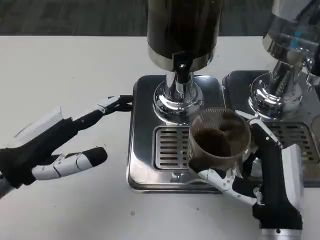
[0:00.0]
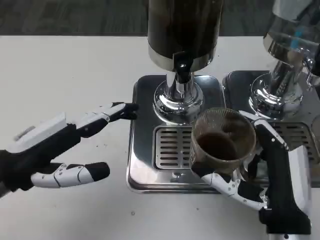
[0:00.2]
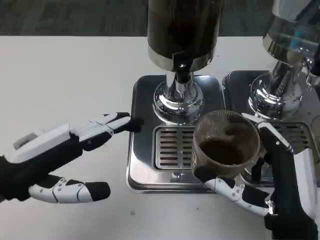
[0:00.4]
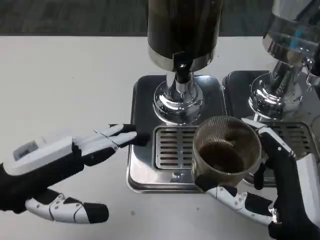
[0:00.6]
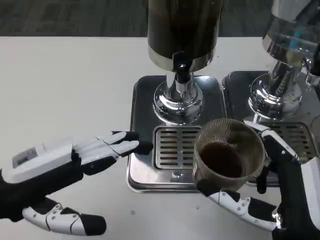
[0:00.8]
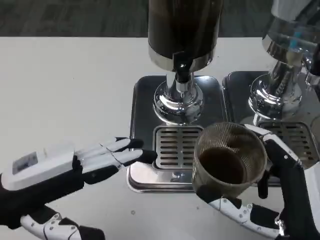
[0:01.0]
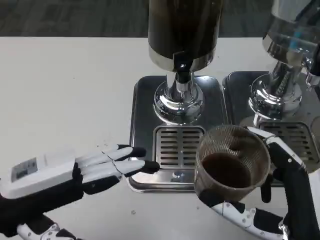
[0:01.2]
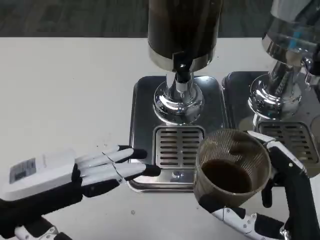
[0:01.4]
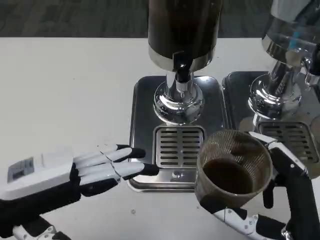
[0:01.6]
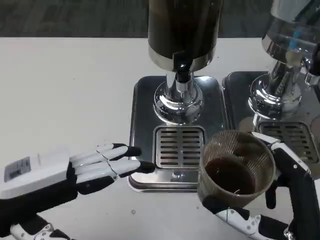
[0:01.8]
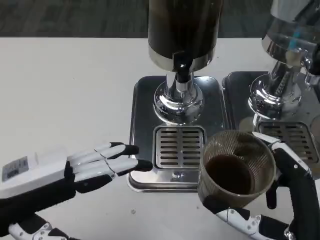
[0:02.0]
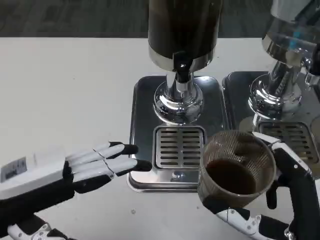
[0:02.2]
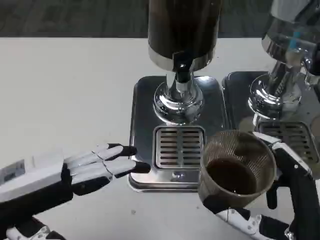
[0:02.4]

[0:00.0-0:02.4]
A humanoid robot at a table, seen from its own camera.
Task of the whole recording: Grasp the cup under the faucet to collect the drink, then remove the cup.
0:00.0 to 0:01.2: The right hand is displaced backward by approximately 5 cm.
0:01.2 to 0:02.4: Both hands stay about where they are.

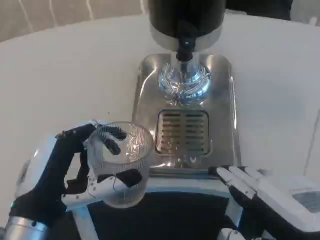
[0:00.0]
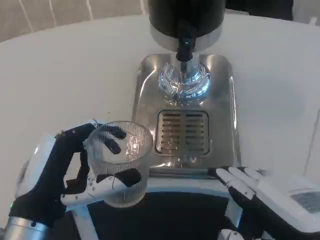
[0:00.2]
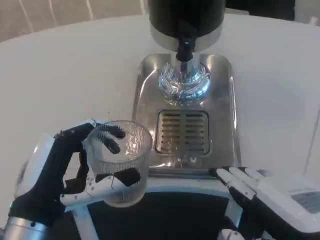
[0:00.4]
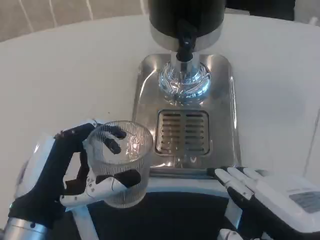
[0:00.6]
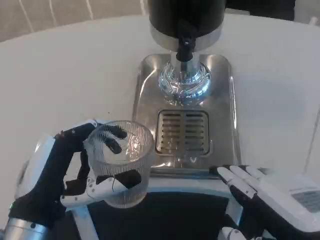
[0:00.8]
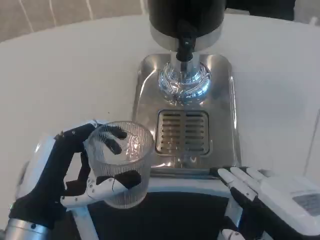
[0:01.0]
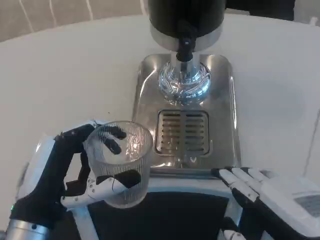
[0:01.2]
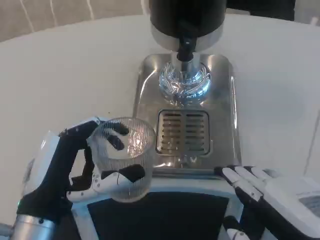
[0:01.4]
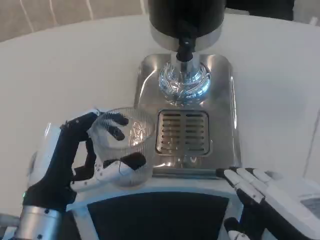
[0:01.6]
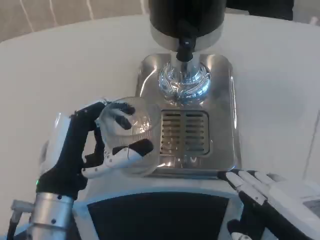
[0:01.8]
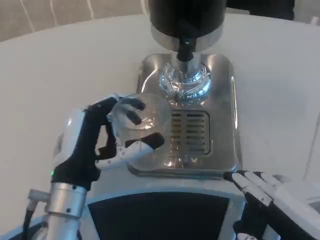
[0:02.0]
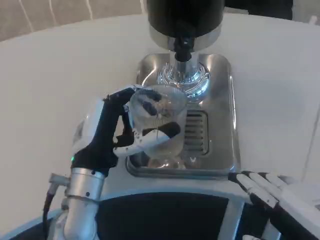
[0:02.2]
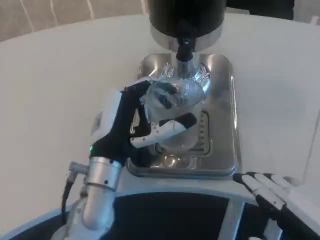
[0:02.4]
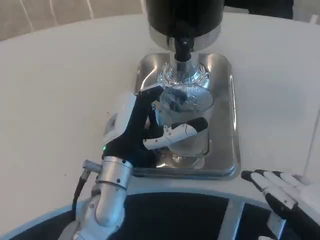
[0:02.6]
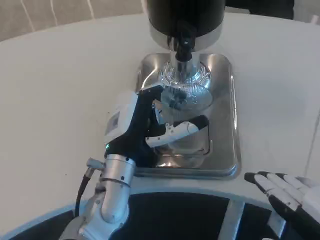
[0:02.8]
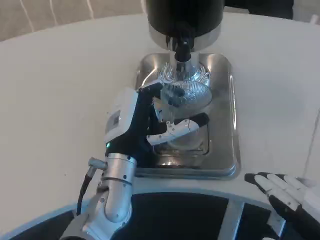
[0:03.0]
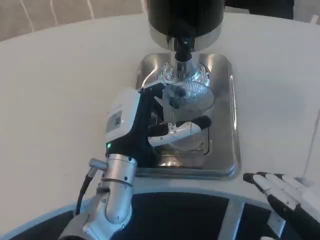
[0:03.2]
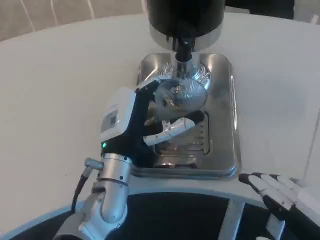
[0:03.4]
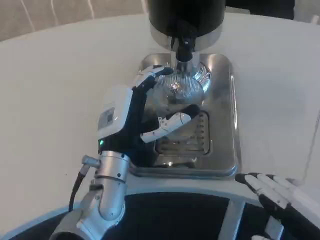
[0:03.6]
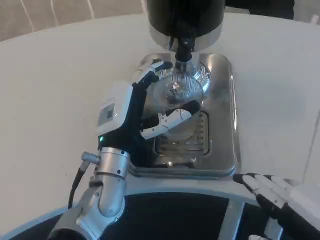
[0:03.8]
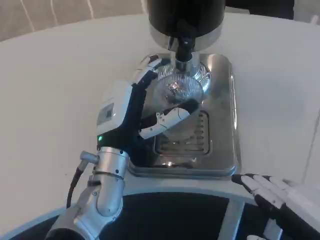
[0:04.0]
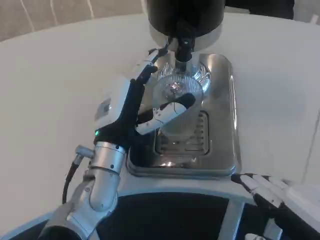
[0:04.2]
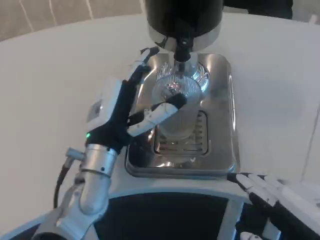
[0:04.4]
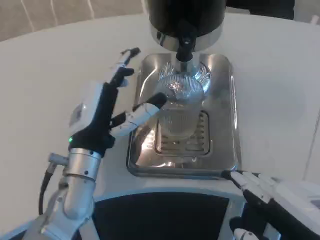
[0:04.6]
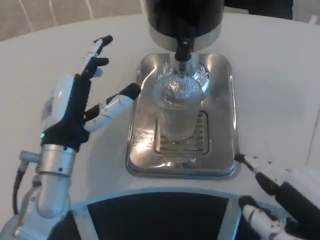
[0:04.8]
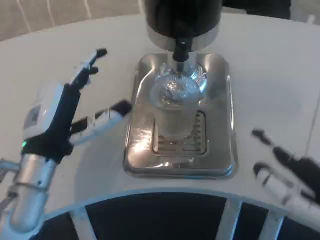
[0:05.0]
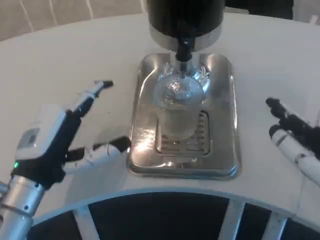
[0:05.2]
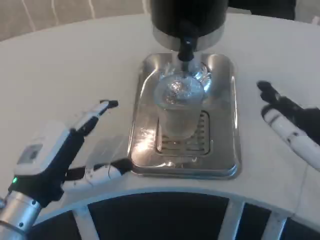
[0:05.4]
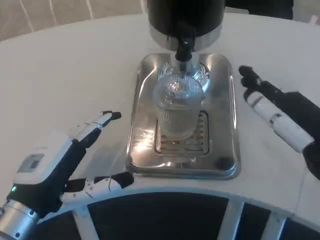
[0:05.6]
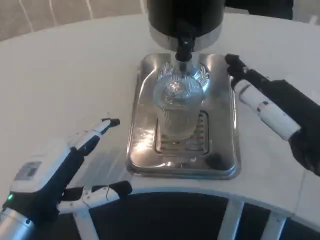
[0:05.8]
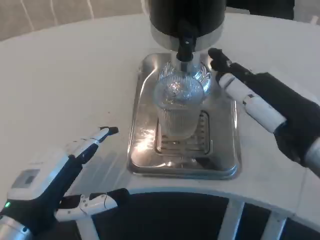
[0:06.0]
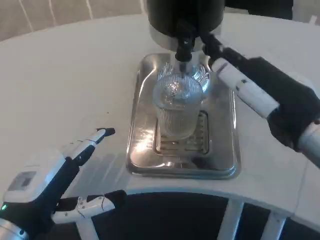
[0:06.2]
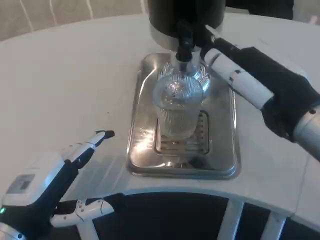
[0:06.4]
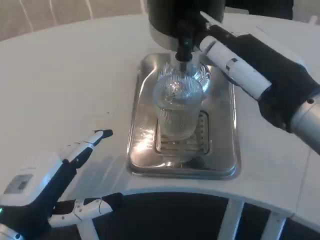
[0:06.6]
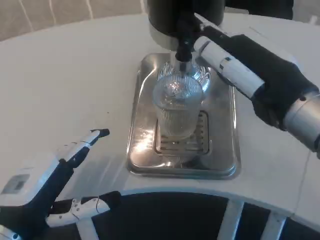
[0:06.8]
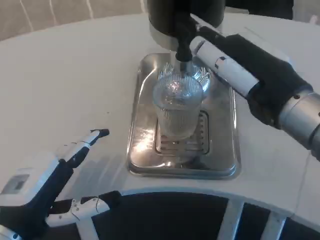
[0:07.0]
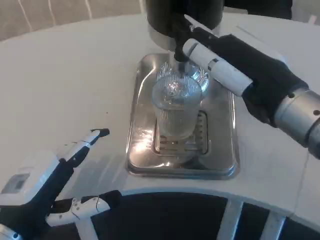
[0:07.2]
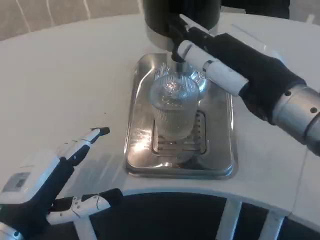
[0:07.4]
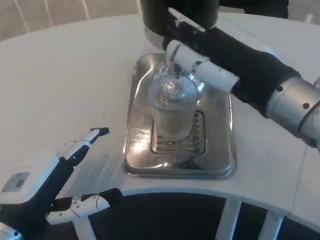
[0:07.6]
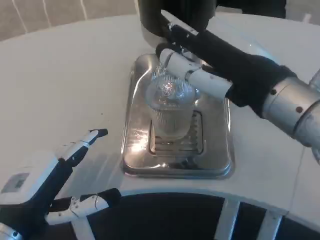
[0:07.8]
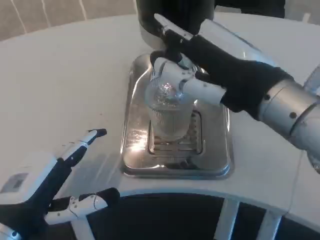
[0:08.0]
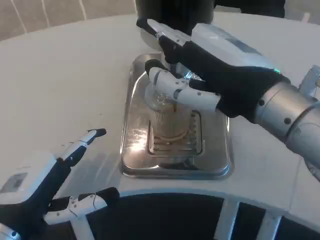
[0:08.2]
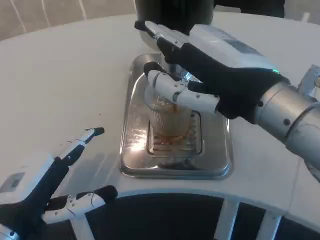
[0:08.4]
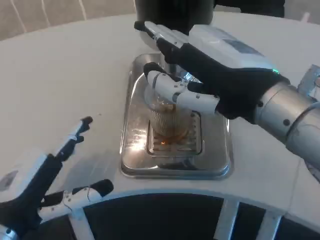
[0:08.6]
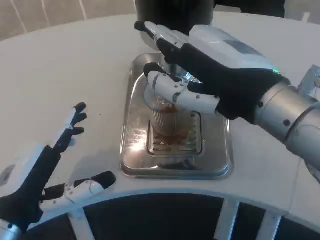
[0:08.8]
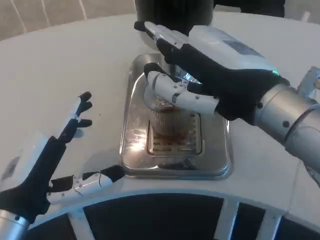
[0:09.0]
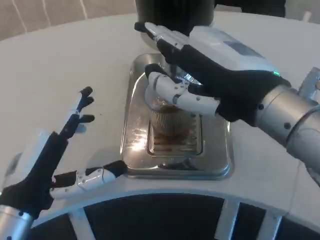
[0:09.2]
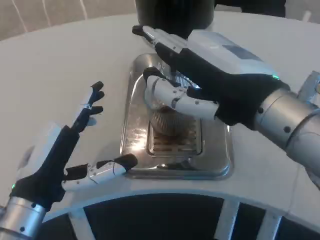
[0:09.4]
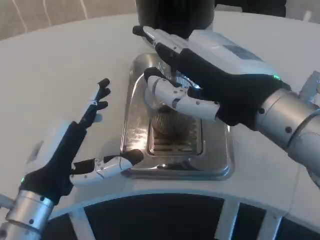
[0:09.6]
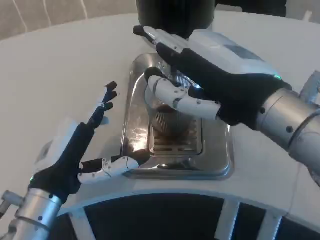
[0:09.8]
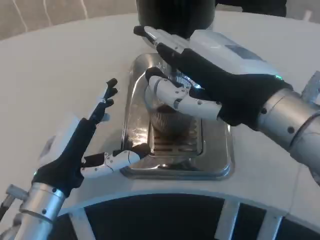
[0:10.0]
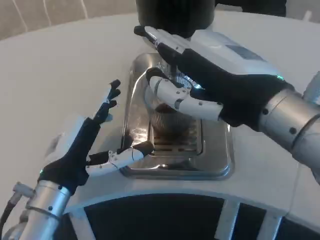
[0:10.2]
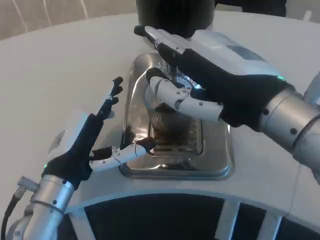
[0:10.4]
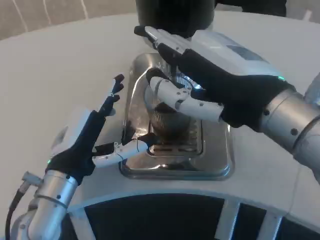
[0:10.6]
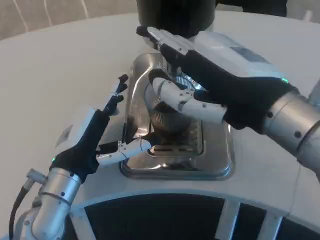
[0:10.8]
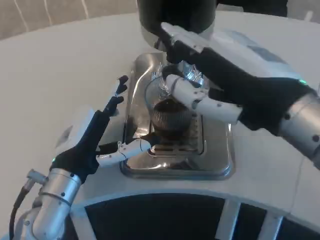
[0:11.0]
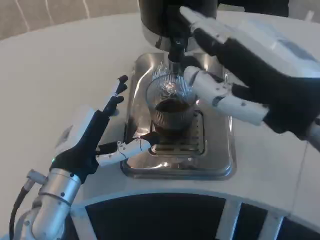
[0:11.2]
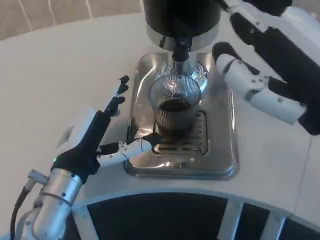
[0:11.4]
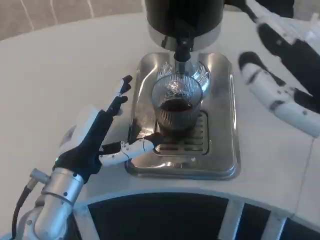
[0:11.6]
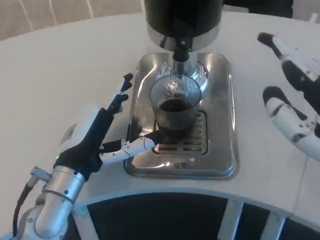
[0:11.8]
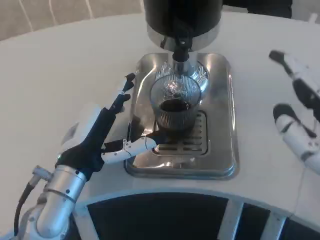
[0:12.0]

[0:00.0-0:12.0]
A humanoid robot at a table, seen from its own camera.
Task of the whole recording: Grasp the cup under the faucet to collect the drink, then remove the cup.
0:00.0 to 0:01.6: The hands make only small movements.
0:01.6 to 0:03.0: The left hand travels forward and to the right by approximately 15 cm.
0:03.0 to 0:04.4: There are only small adjustments of the hands.
0:04.4 to 0:06.0: The left hand shifts about 15 cm backward and to the left. Meanwhile the right hand moves forward, approximately 10 cm.
0:06.0 to 0:07.6: The right hand changes place by roughly 5 cm.
0:09.0 to 0:10.4: The left hand heads forward, covering roughly 5 cm.
0:10.4 to 0:12.0: The right hand moves to the right, backward and downward, about 15 cm.

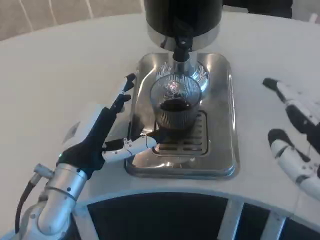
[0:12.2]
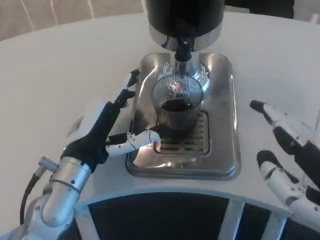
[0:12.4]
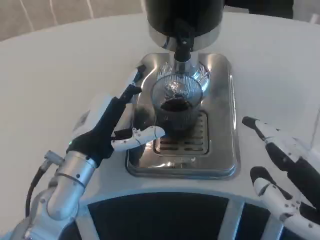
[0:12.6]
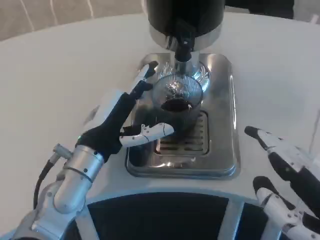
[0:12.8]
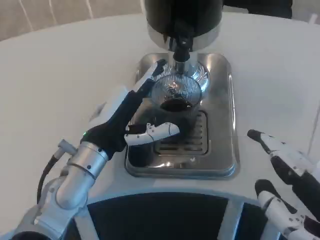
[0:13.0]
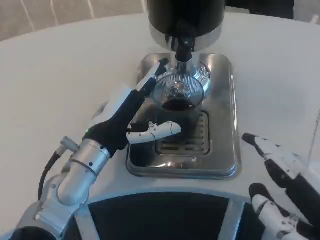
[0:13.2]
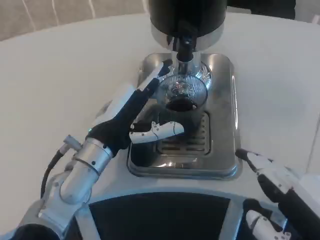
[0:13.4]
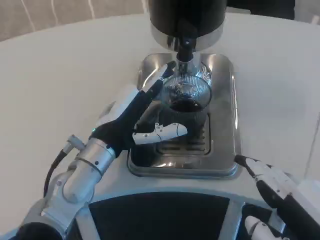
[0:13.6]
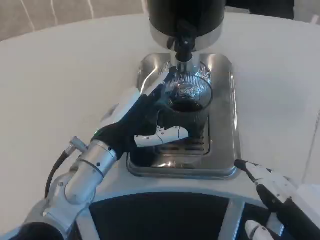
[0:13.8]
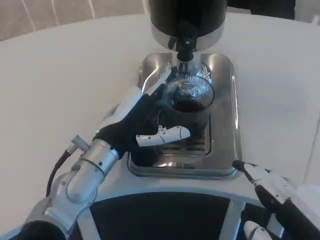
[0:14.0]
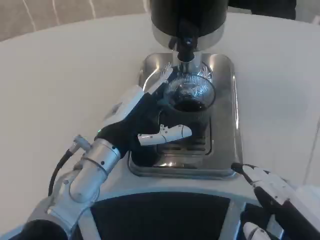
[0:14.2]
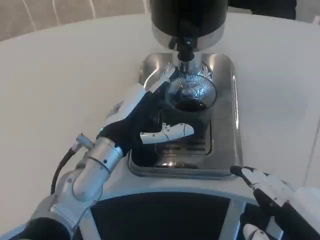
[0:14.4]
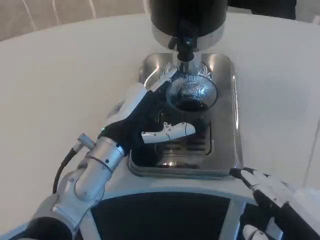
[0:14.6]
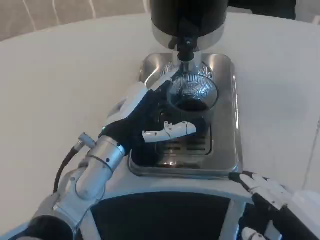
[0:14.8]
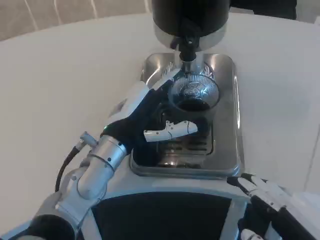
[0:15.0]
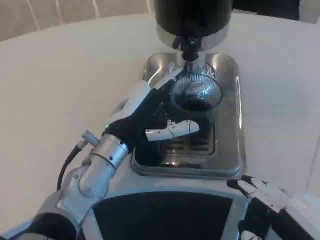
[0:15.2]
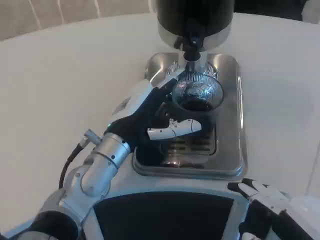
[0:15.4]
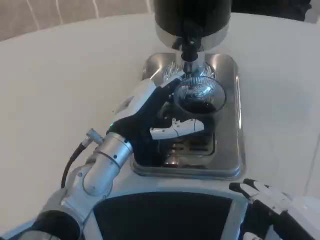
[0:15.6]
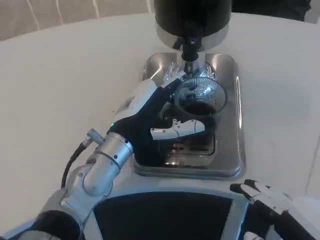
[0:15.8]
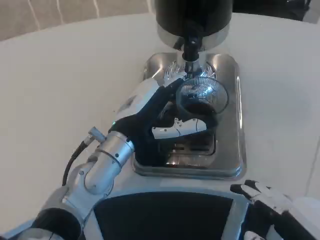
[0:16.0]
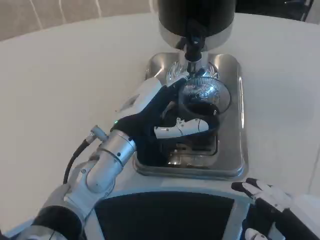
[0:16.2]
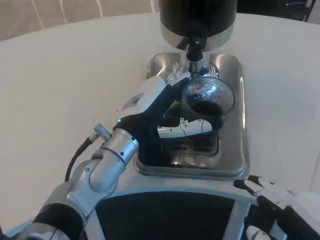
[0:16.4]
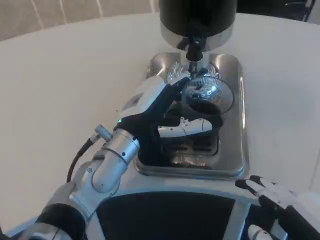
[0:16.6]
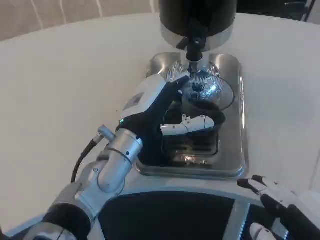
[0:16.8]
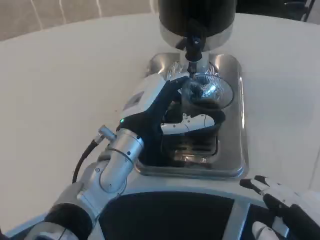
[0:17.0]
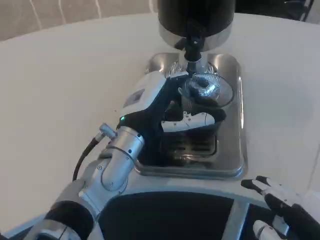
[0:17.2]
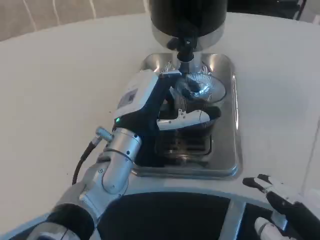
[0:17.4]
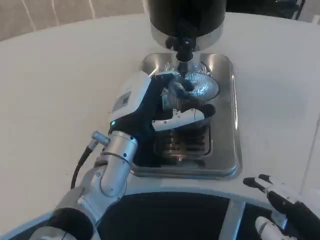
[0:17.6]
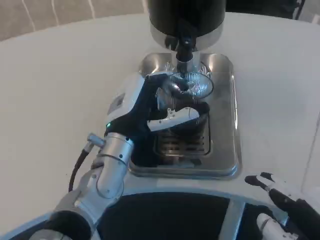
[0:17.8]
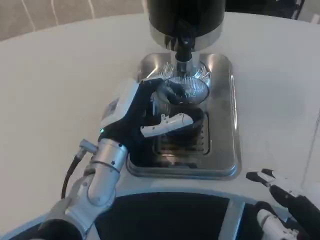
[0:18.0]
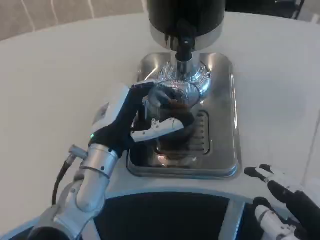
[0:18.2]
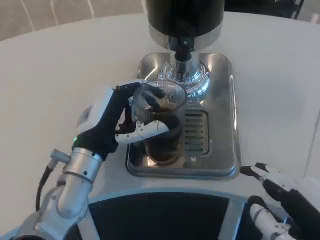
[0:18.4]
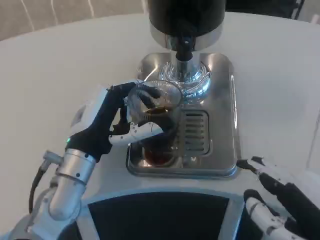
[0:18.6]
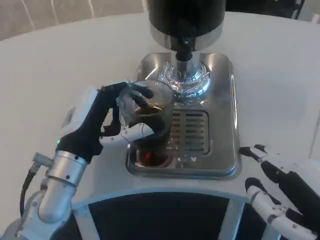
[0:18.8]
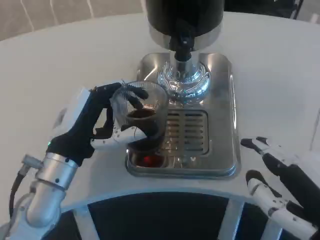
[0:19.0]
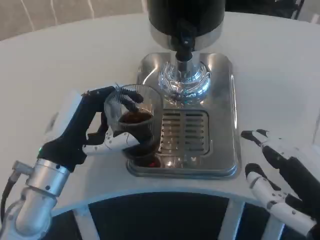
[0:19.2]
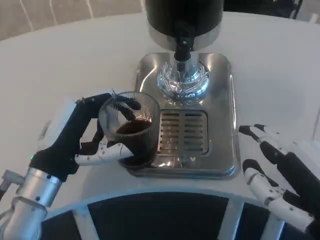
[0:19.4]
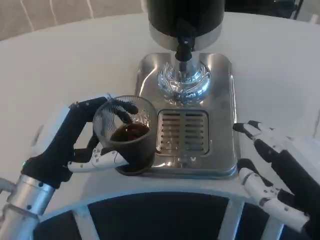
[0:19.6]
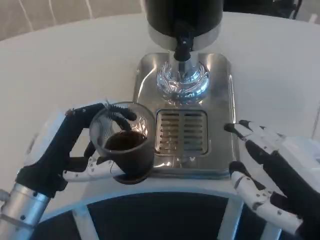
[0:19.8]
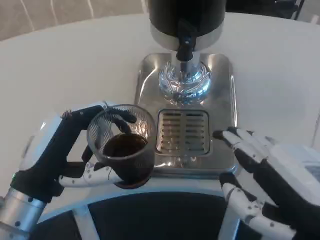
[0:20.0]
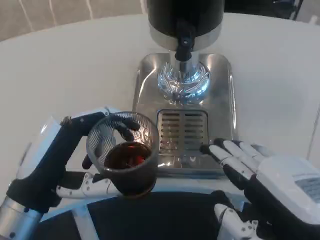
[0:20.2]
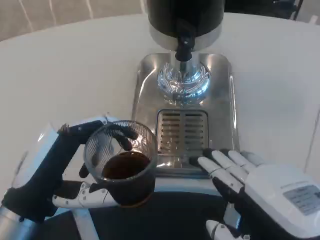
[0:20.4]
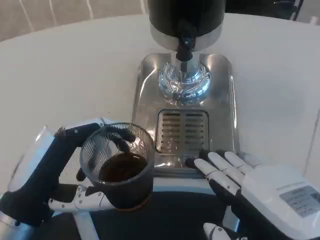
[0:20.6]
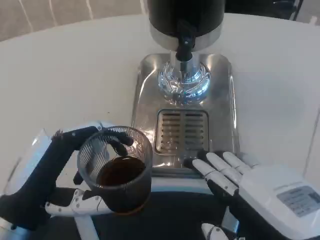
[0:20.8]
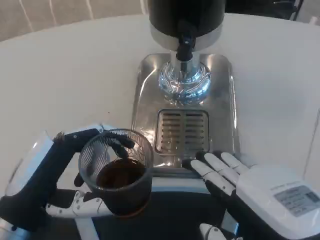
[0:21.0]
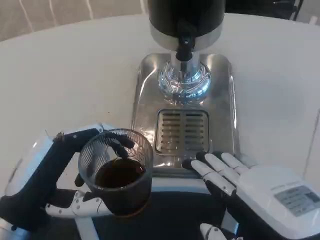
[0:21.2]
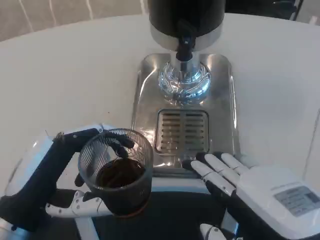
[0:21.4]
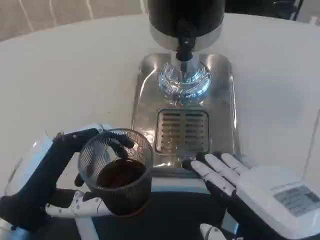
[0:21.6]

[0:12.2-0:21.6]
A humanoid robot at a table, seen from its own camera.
Task of the whole recording: Grasp the cup under the faucet to collect the drink, then remove the cup.
0:12.2 to 0:13.8: The right hand moves approximately 5 cm, while the left hand ends up approximately 5 cm from where it was.
0:15.4 to 0:17.0: There are only small adjustments of the hands.
0:17.0 to 0:18.4: The left hand is displaced to the left by about 5 cm.
0:18.4 to 0:20.0: The left hand heads backward and to the left, covering roughly 10 cm.
